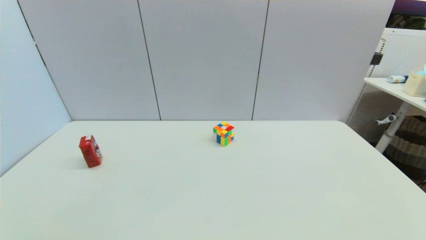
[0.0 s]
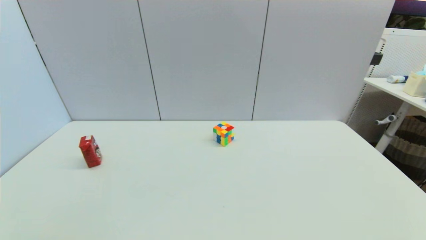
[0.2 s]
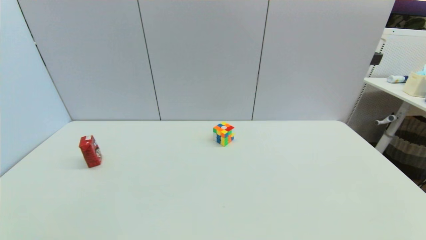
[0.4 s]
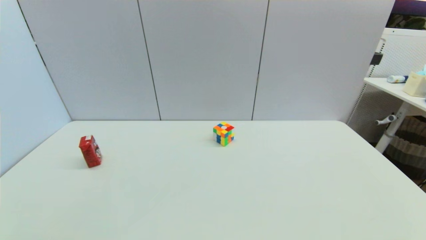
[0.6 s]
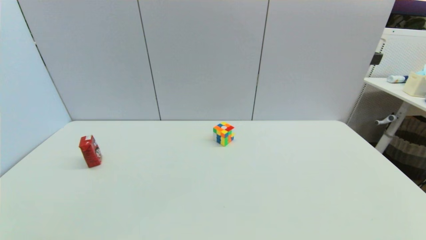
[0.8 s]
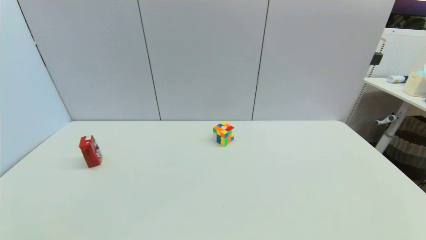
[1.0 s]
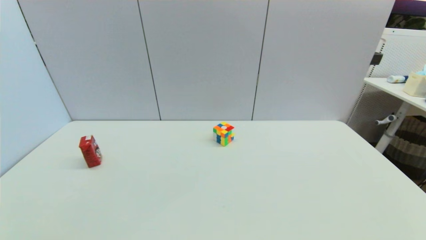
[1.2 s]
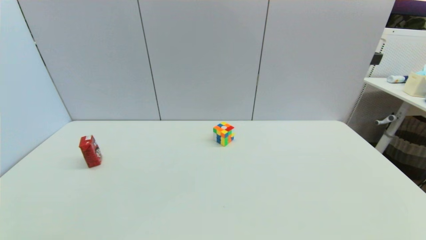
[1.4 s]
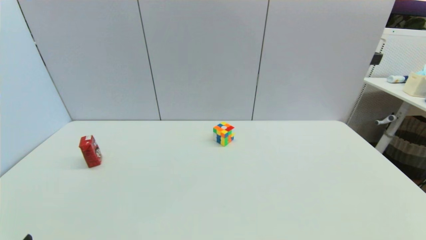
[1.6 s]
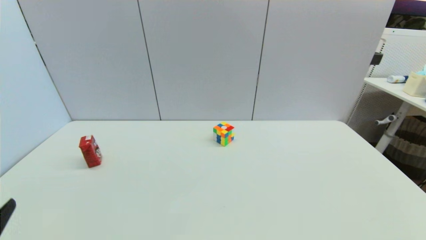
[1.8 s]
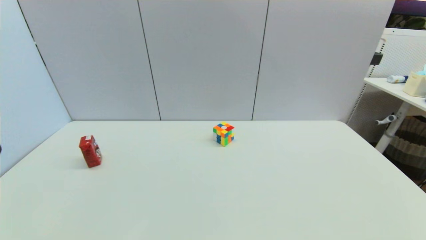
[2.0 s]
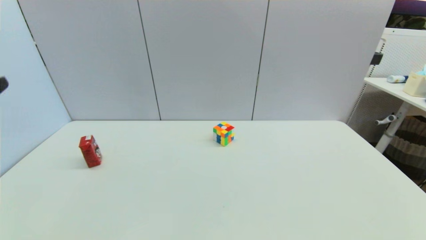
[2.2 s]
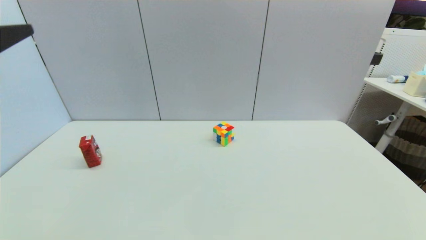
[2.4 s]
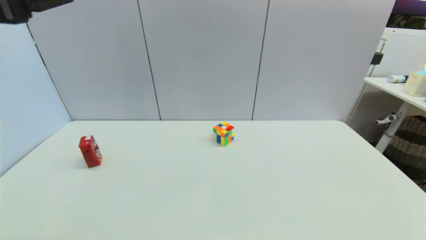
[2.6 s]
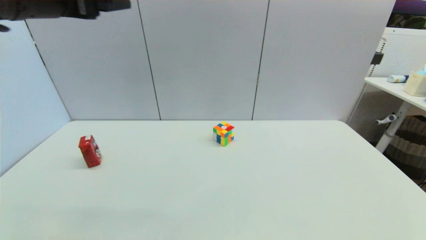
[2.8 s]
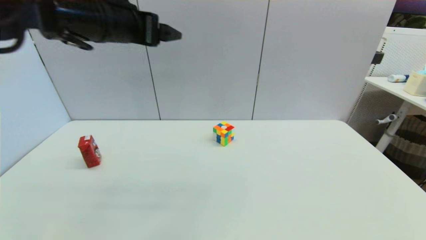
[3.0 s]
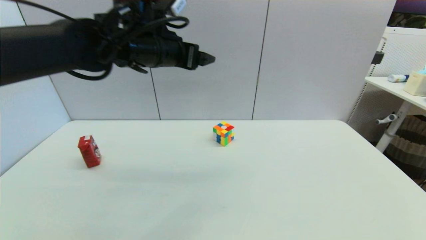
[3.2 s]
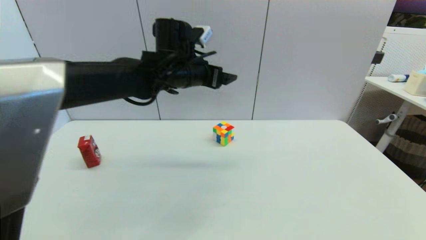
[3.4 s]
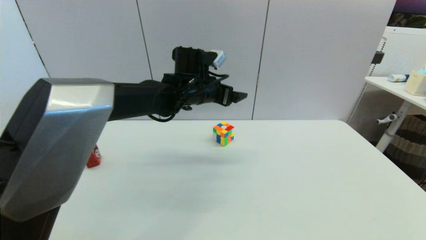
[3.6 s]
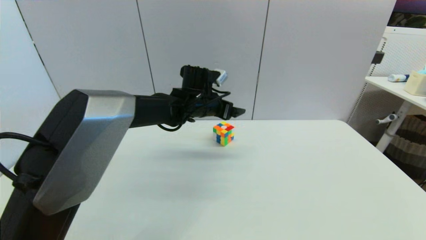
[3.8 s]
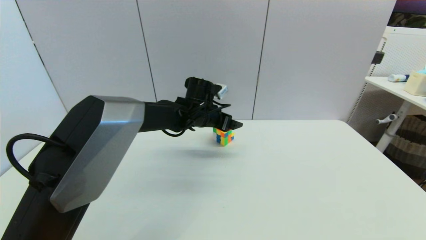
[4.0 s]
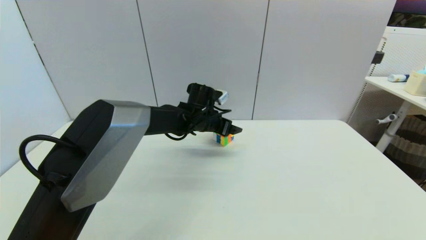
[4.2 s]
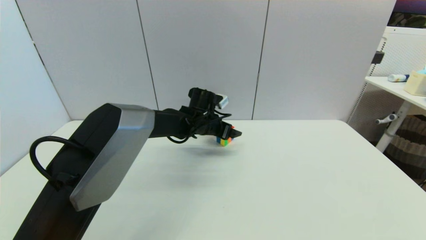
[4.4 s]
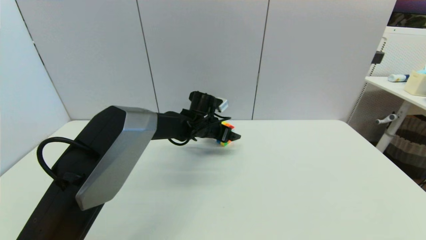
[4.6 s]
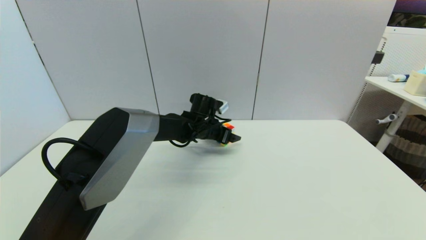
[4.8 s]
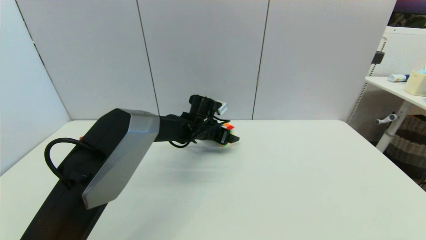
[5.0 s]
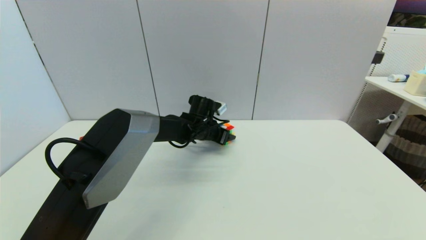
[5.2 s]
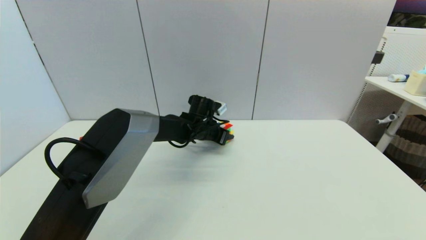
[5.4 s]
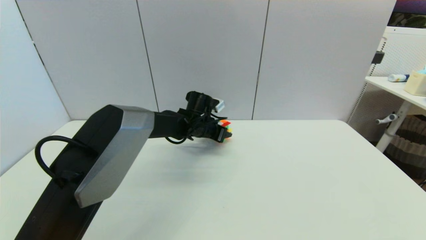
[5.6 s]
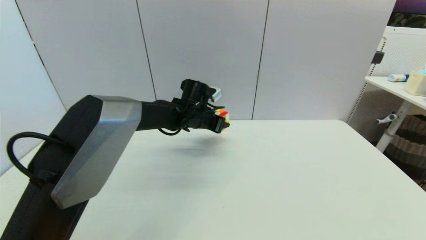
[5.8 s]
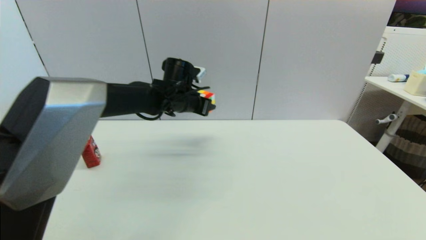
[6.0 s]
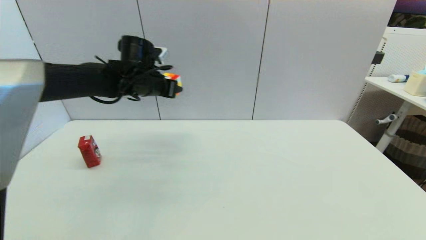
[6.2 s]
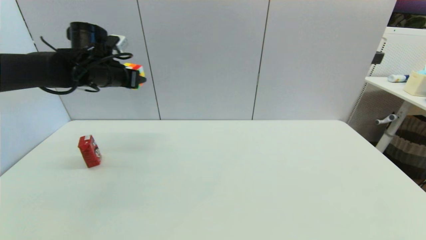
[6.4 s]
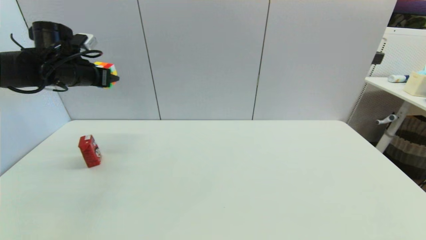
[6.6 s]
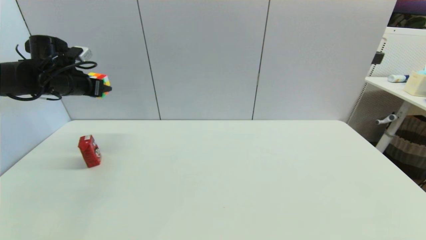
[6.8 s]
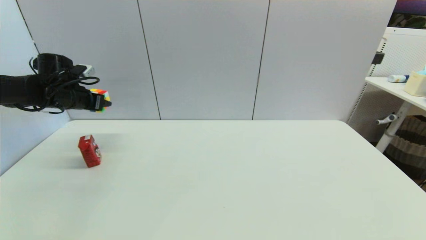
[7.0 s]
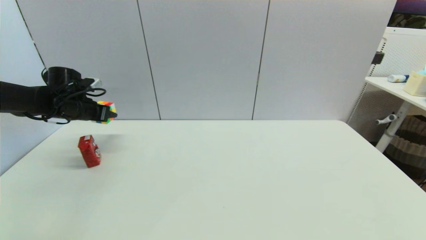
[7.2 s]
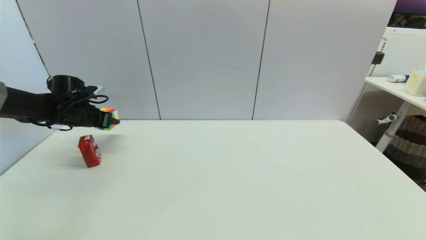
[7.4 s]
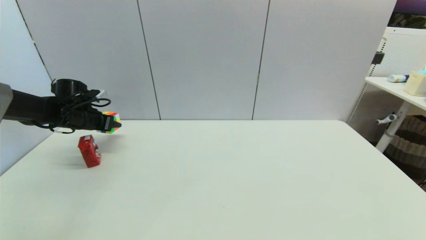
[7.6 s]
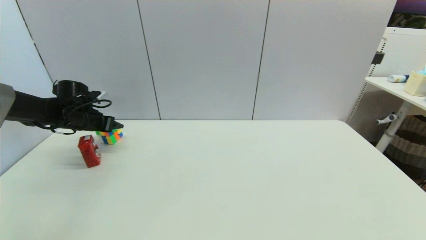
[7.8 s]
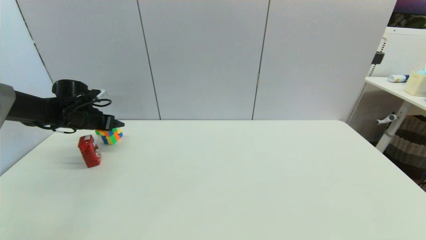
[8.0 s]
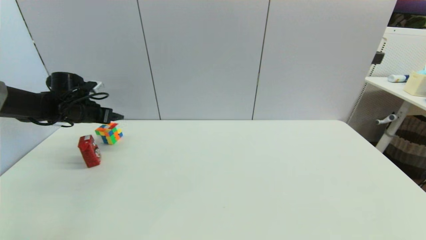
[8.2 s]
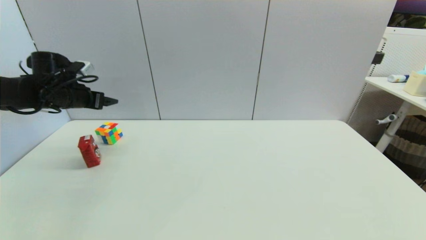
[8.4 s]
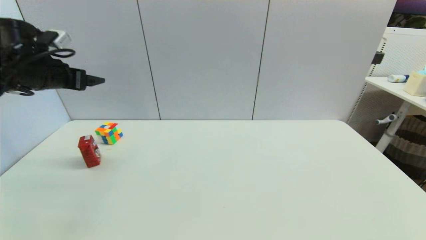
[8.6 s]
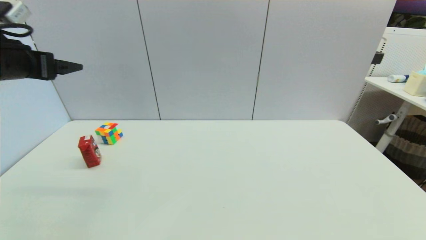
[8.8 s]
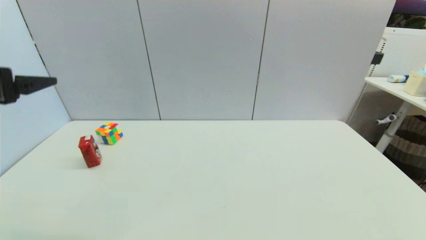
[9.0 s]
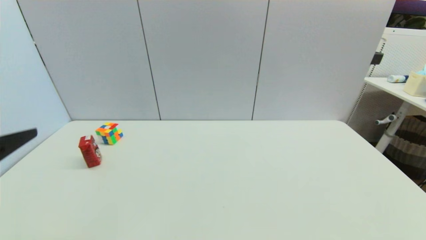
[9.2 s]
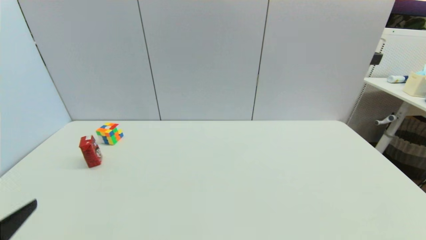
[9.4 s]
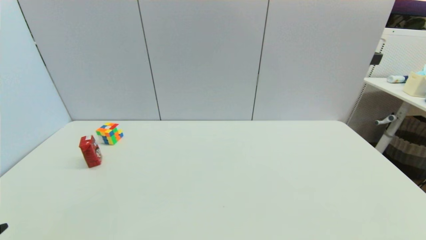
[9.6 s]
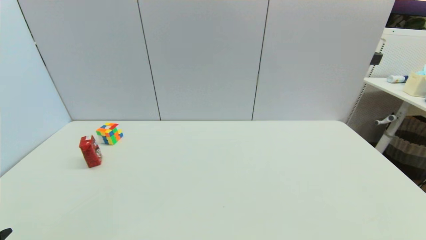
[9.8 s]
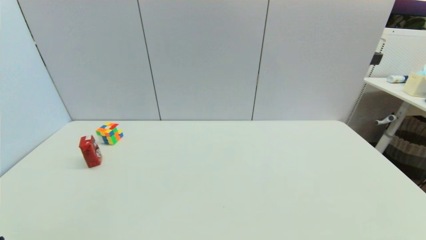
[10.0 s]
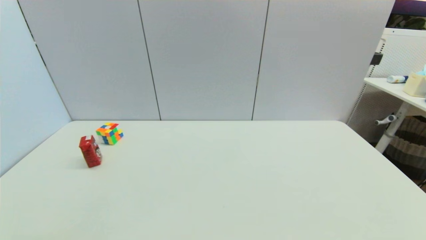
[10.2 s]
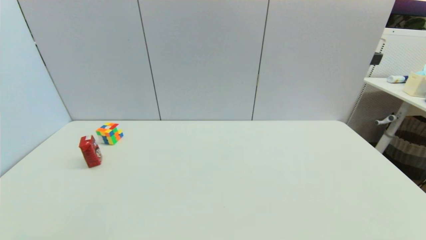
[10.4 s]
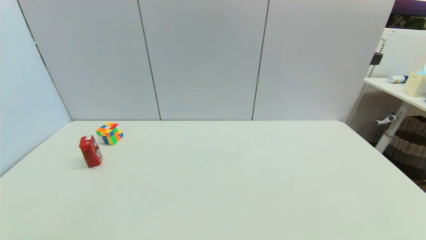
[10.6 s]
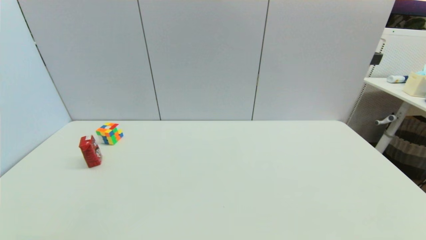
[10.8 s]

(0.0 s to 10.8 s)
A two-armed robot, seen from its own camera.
Step, 1.8 s - 5.2 s: Grasp the magic cube with left gripper.
Step, 5.4 s - 8.0 s: Place the magic cube on the table with left gripper.
1.6 s - 3.0 s: The left gripper is displaced forward, upward and to the right by approximately 40 cm.
3.0 s - 4.6 s: The left gripper moves downward, to the right and forward, some 35 cm.
4.6 s - 6.2 s: The left gripper heads to the left and upward, covering some 20 cm, and closes up.
6.2 s - 7.8 s: The left gripper travels to the left and downward by roughly 20 cm.
7.8 s - 9.2 s: The left gripper heads backward, covering about 35 cm, and opens.
9.2 s - 10.8 s: The left gripper moves downward and backward, roughly 20 cm.
